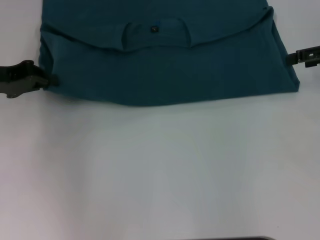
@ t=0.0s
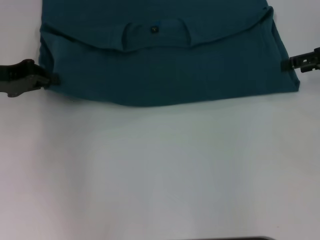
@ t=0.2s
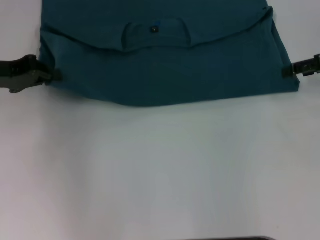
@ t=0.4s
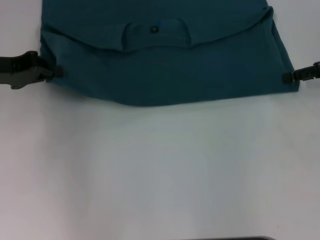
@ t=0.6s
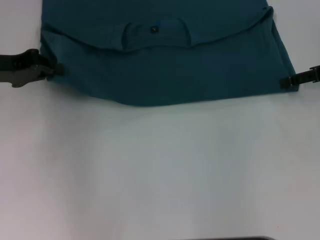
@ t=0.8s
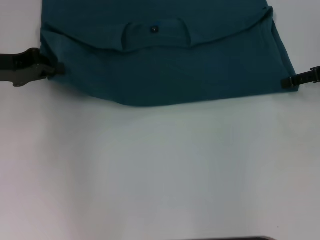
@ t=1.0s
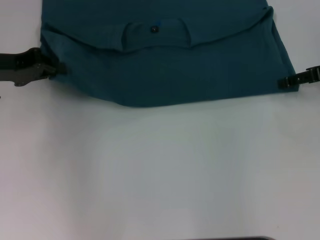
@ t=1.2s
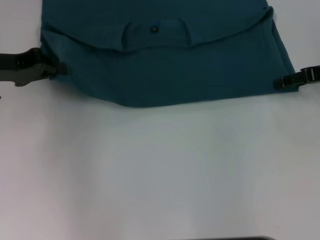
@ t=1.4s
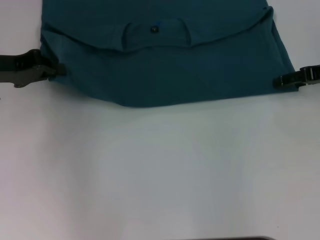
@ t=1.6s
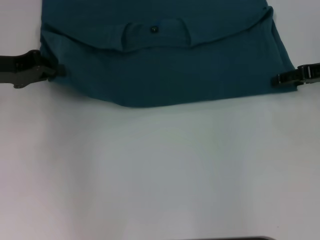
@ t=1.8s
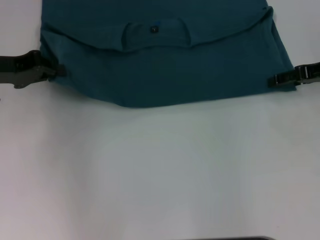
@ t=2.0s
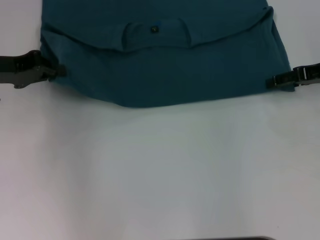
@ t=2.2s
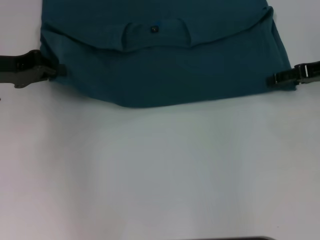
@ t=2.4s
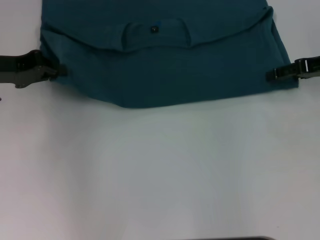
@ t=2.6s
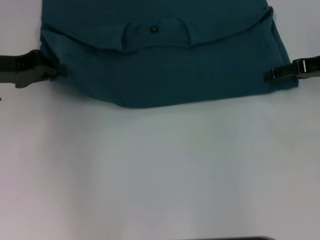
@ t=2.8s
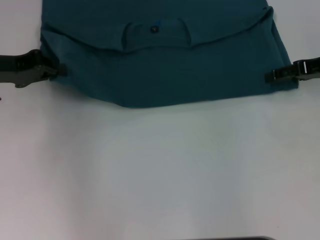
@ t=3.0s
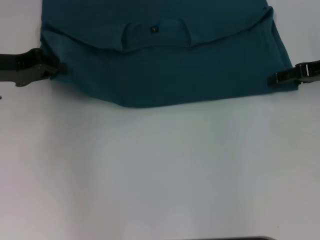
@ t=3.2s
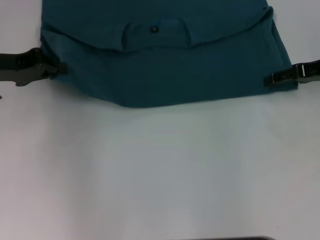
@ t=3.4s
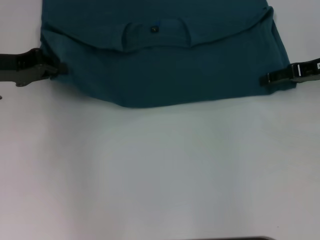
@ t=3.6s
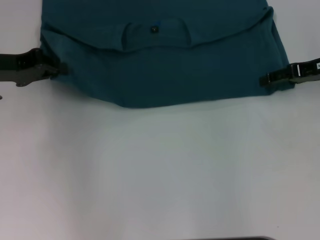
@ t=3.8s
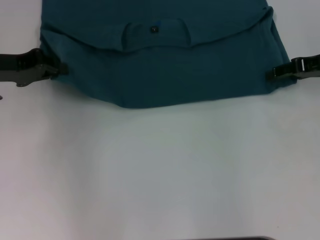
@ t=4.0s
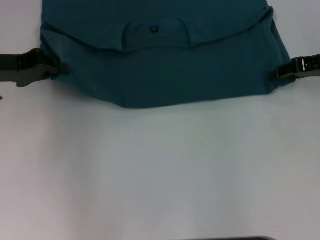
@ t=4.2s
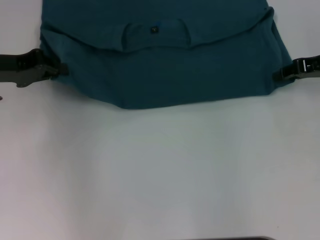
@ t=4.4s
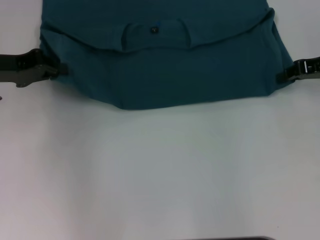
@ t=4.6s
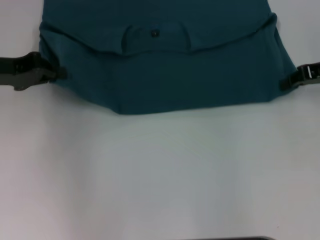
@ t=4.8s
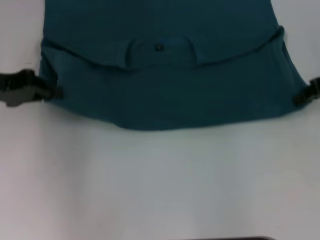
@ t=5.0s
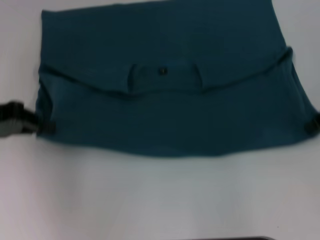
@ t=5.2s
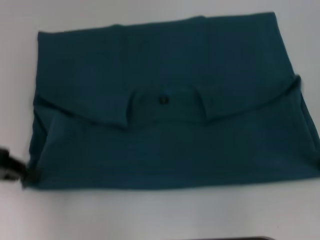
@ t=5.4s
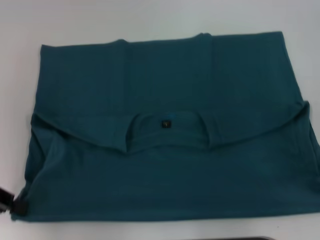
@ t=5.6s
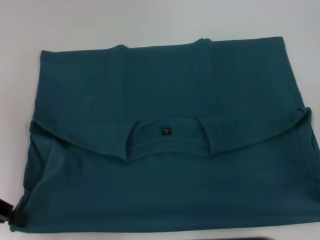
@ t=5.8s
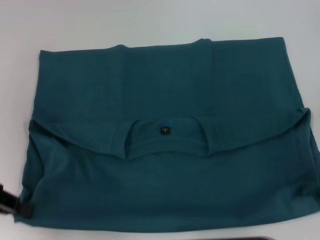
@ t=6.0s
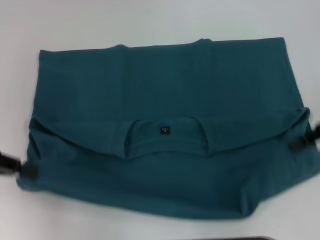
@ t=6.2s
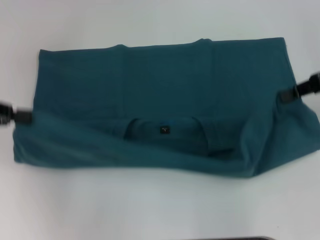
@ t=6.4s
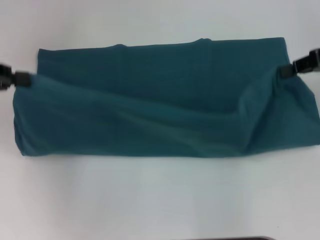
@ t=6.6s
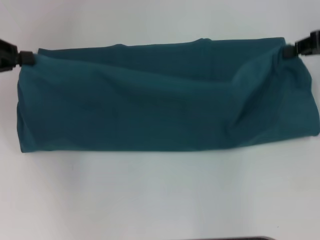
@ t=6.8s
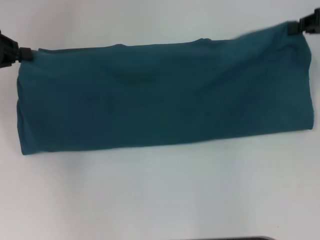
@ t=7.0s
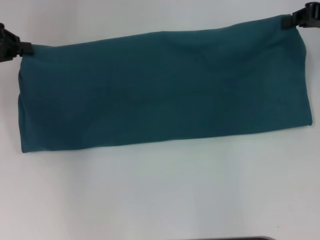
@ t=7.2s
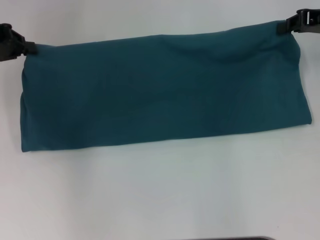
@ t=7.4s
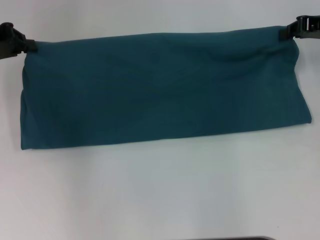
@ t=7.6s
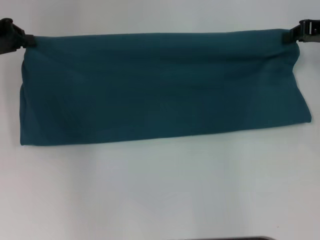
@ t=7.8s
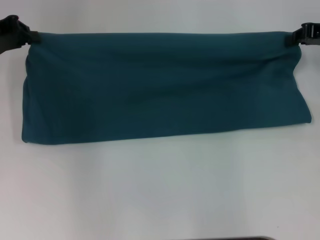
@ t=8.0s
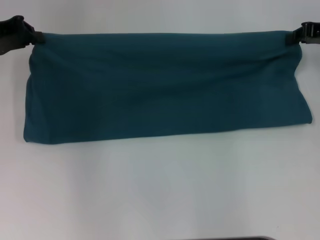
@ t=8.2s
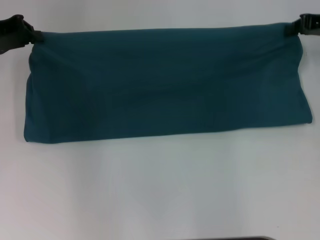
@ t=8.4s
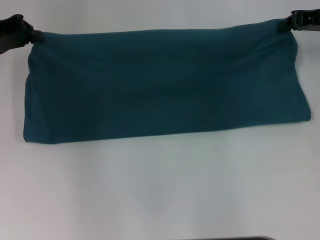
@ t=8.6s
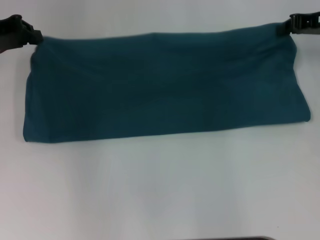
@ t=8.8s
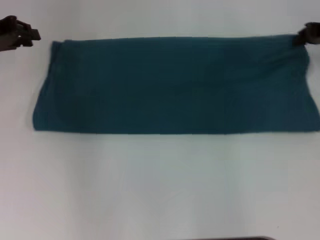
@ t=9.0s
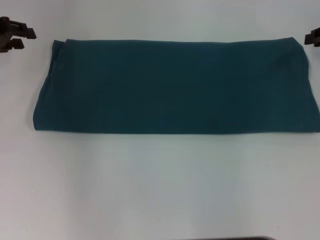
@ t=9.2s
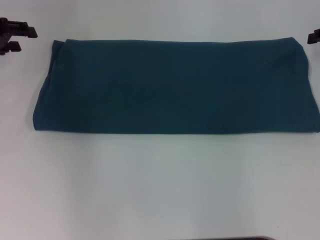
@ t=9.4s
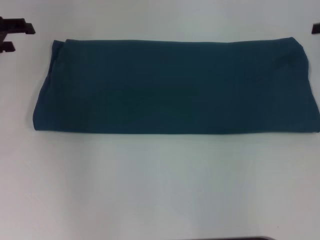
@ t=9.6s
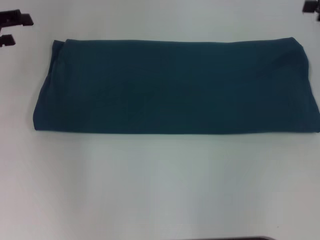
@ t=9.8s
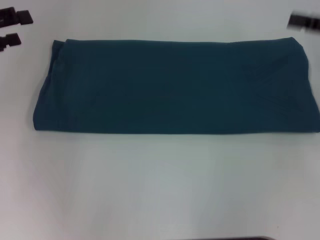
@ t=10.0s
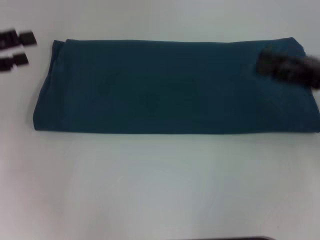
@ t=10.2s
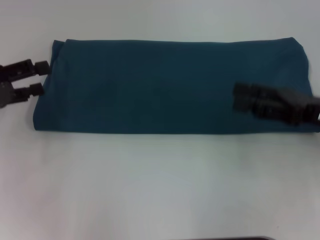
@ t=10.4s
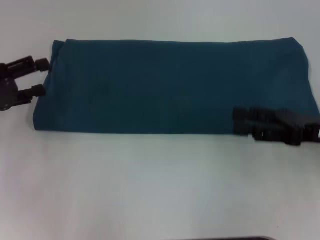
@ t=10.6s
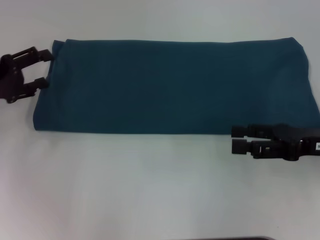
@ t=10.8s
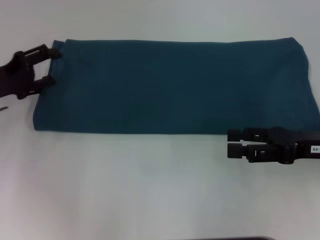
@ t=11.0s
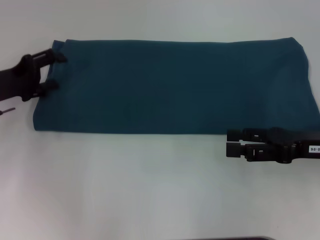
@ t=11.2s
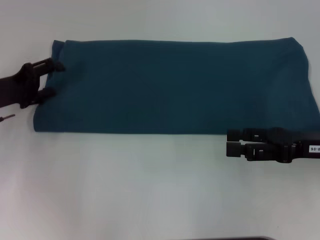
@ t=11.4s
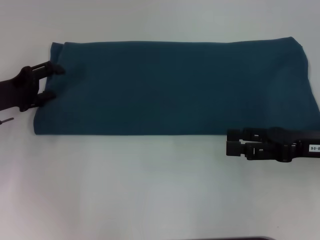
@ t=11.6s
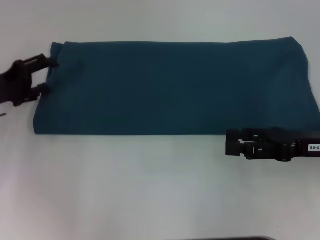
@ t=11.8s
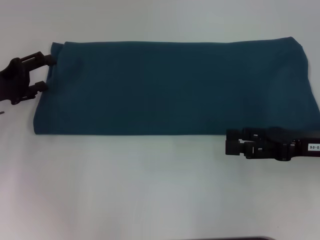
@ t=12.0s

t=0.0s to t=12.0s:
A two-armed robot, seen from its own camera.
Step, t=0.0s to t=5.6s: Pull the clothes with your left hand.
Step, t=0.0s to t=5.6s: Pull the clothes with your right hand.
Step, t=5.8s to t=8.8s: Fold the clothes to the left.
t=0.0s to t=3.0s: The grippers move only a little.
t=3.0s to t=4.4s: The right gripper closes.
t=4.4s to t=6.0s: Both grippers travel together backward, roughly 10 cm. The right gripper closes up.
t=6.0s to t=7.6s: Both grippers move forward, some 10 cm.
t=7.6s to t=9.0s: The grippers make only small movements.
t=9.0s to t=10.4s: The two grippers go about 15 cm backward. The left gripper opens its fingers; the right gripper opens up.
t=10.4s to t=12.0s: The left gripper shifts by about 5 cm.

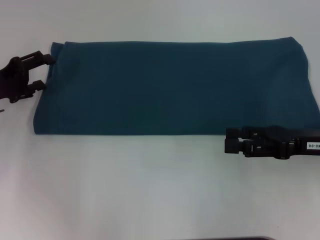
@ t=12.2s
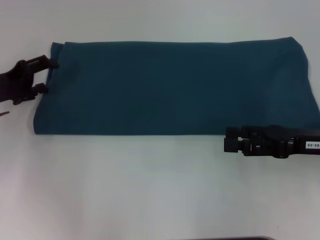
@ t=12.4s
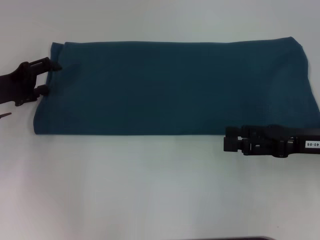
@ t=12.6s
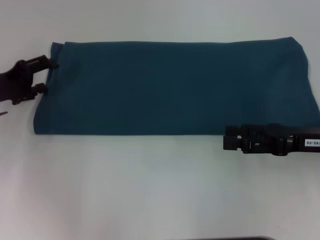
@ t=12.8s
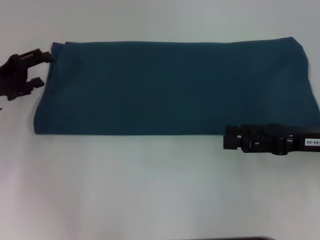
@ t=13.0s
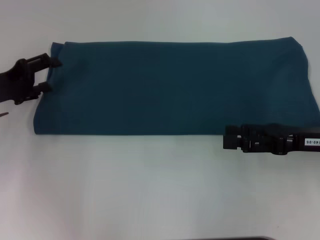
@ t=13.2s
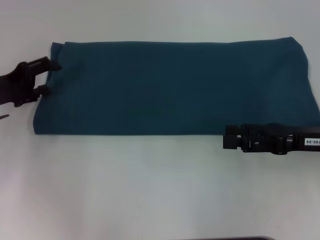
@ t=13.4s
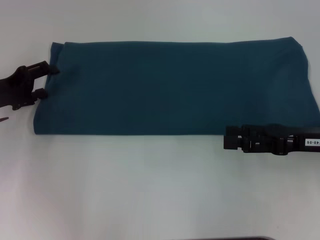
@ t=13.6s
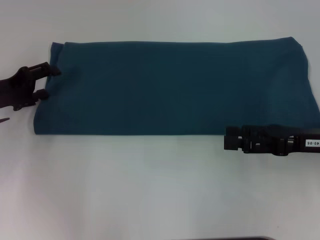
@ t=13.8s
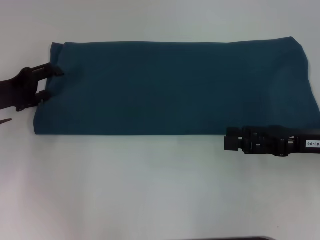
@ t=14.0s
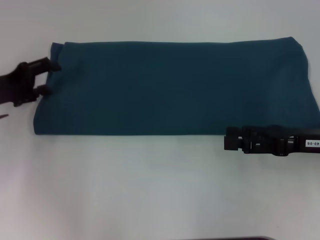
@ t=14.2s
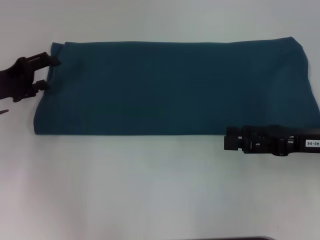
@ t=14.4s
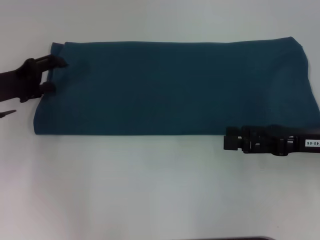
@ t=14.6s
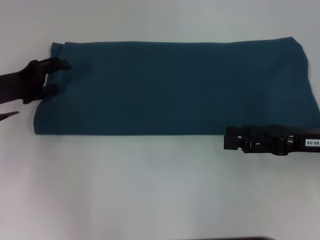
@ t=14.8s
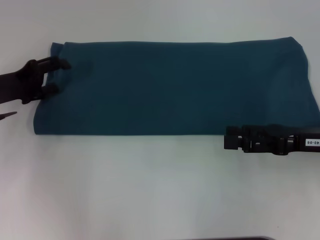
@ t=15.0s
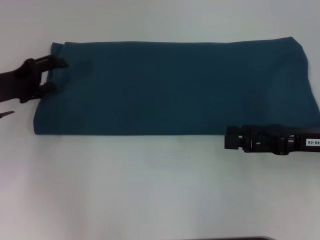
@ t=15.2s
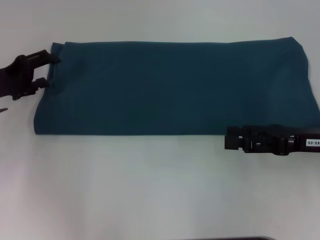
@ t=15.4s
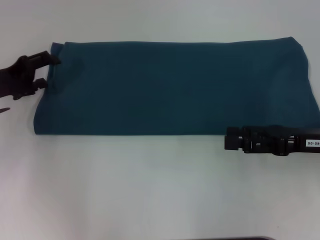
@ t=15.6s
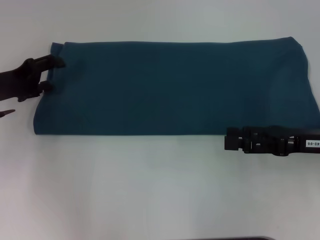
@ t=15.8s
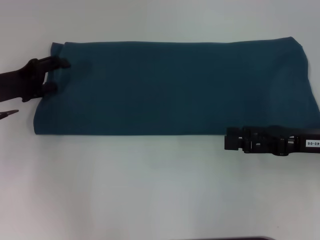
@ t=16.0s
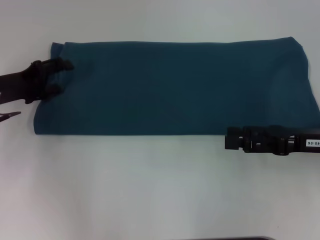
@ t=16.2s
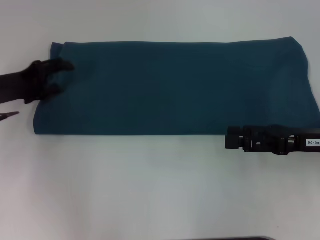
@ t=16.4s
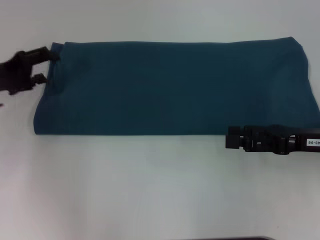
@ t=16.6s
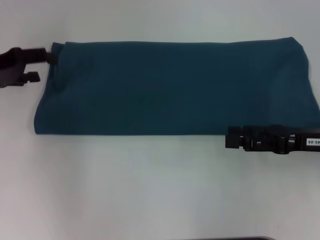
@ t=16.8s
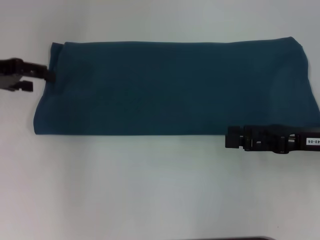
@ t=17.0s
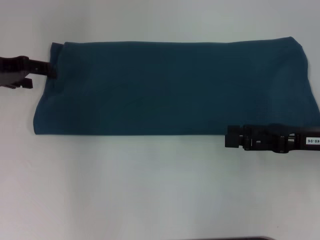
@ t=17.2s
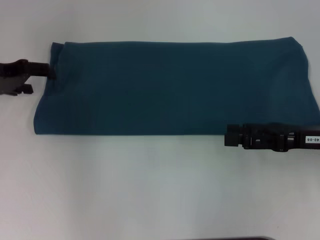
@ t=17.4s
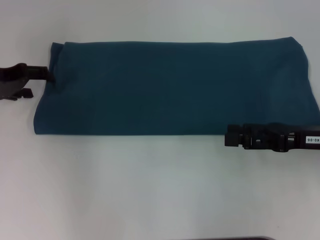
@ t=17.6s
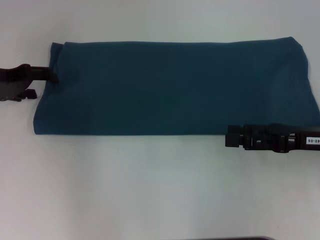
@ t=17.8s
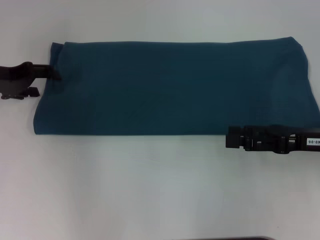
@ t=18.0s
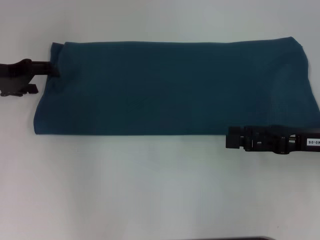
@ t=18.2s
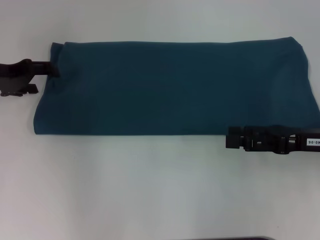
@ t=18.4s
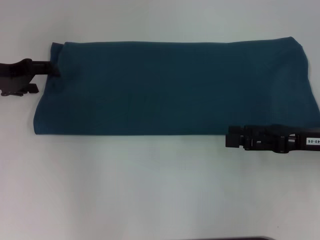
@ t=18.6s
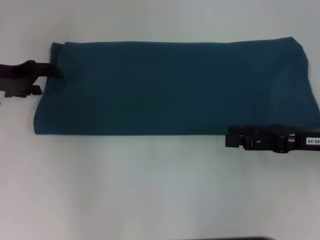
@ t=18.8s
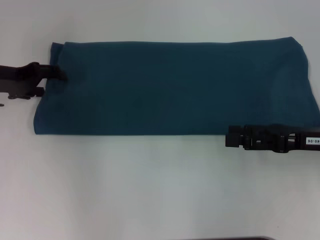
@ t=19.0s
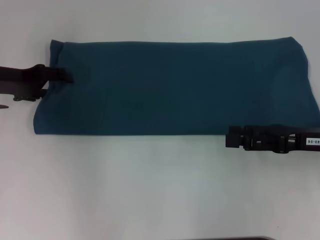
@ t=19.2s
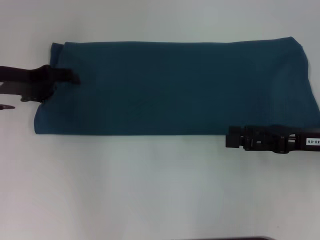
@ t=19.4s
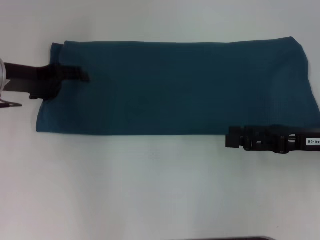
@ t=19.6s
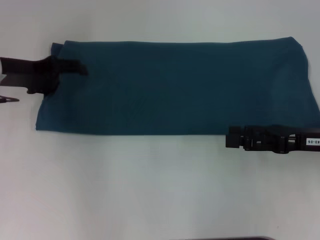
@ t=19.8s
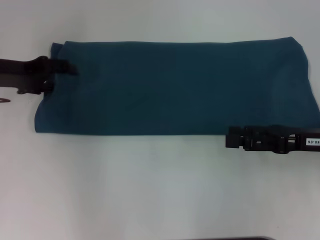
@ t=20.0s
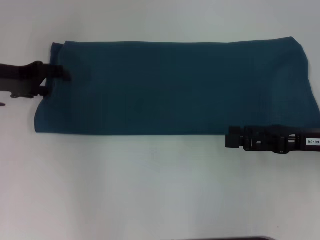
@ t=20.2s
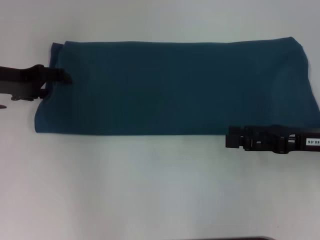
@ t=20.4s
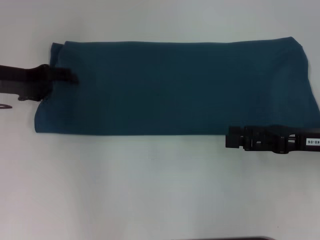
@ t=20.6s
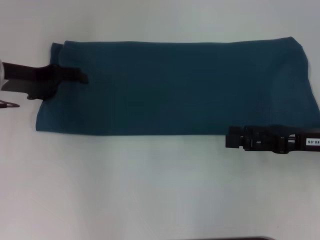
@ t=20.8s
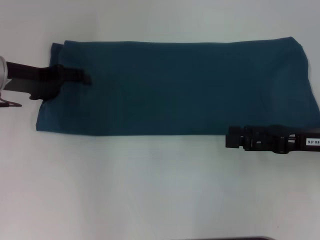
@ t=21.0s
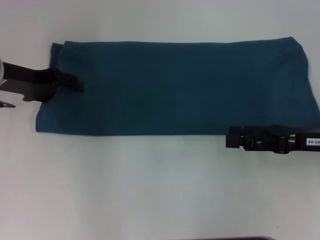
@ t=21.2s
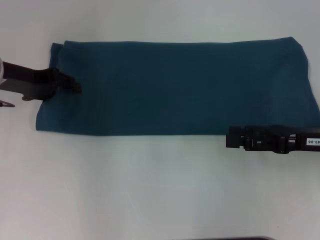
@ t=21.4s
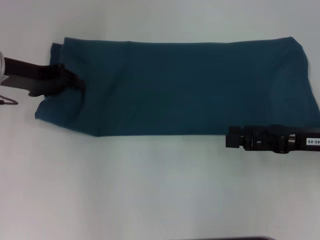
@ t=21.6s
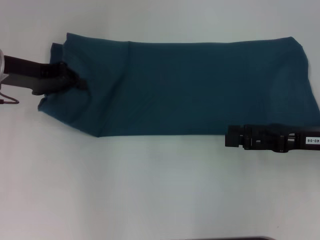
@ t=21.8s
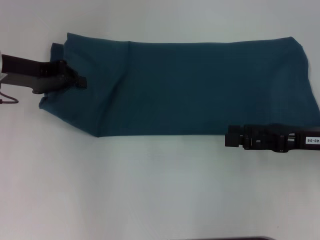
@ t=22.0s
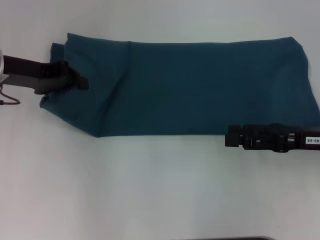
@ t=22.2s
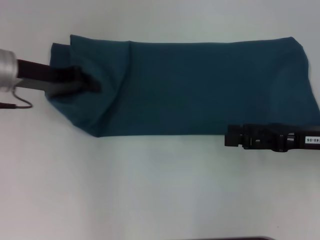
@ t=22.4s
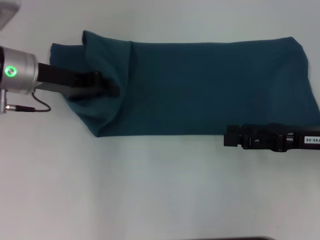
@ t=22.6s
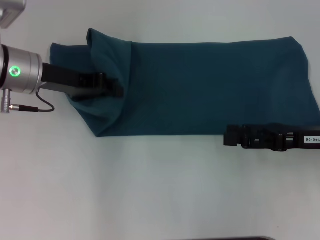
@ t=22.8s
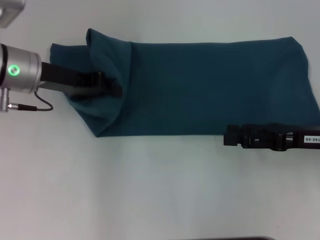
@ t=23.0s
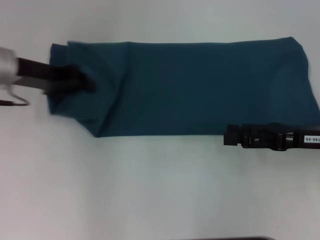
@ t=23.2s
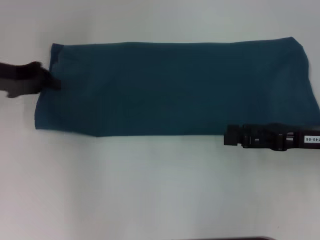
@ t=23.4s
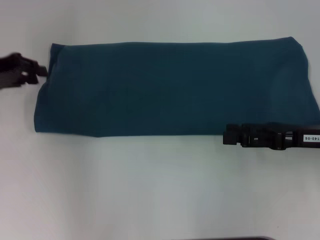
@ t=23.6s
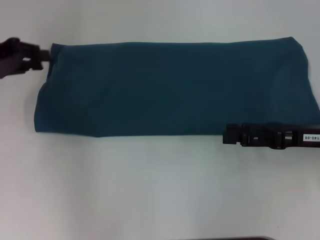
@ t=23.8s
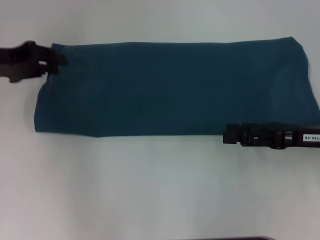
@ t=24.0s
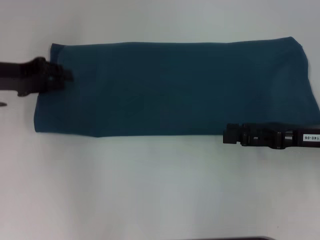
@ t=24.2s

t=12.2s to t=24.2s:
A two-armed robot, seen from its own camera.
t=12.2s to t=13.8s: Both grippers stay about where they are.
t=13.8s to t=16.6s: The grippers move only a little.
t=18.2s to t=21.2s: The grippers move only a little.
t=21.2s to t=22.6s: The left gripper moves to the right, some 5 cm, and closes.
t=22.6s to t=24.2s: The left gripper heads to the left, covering some 5 cm.
